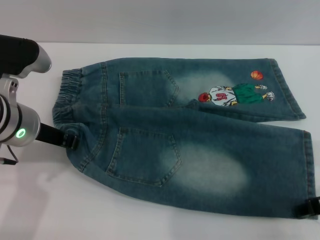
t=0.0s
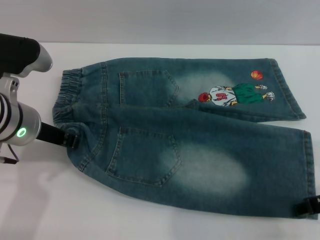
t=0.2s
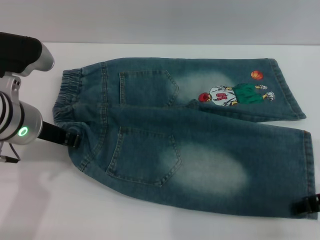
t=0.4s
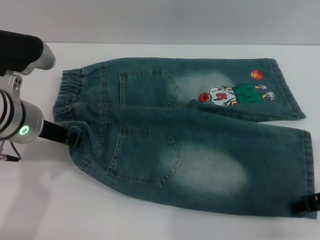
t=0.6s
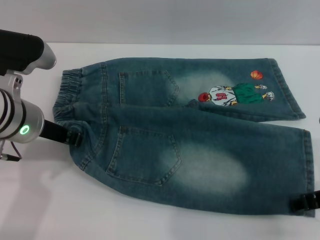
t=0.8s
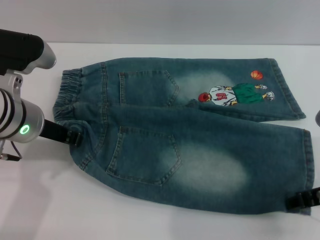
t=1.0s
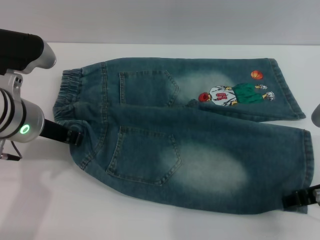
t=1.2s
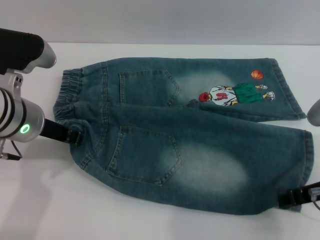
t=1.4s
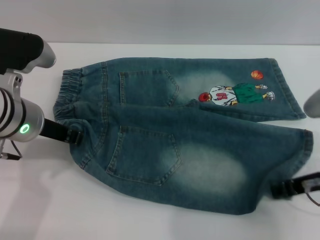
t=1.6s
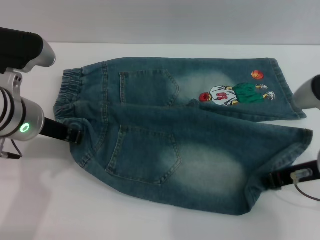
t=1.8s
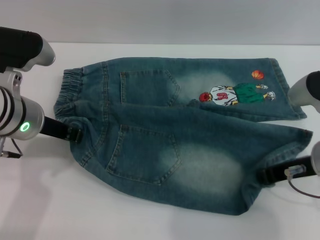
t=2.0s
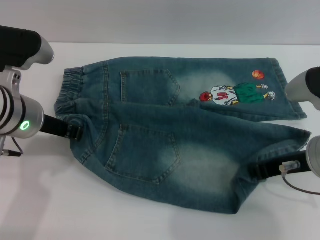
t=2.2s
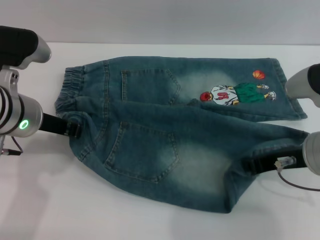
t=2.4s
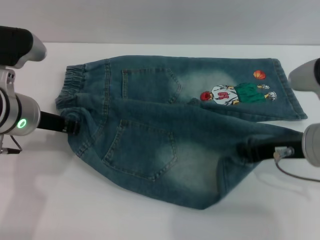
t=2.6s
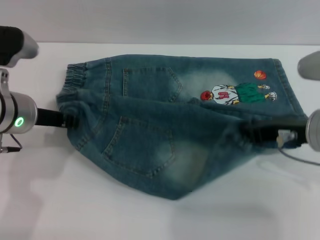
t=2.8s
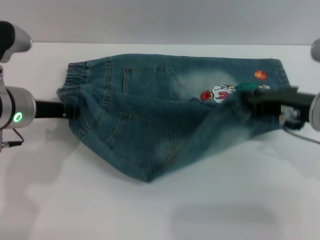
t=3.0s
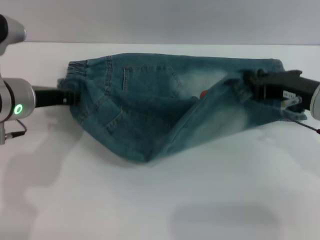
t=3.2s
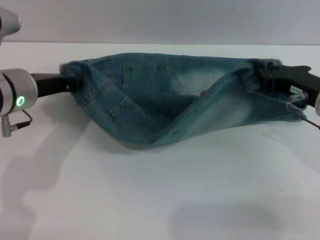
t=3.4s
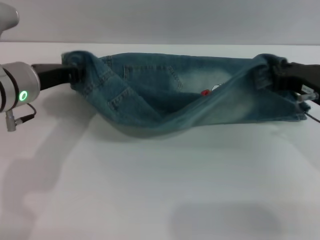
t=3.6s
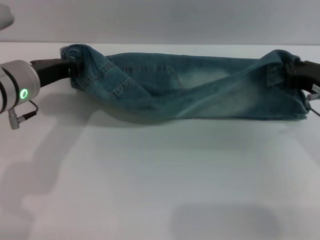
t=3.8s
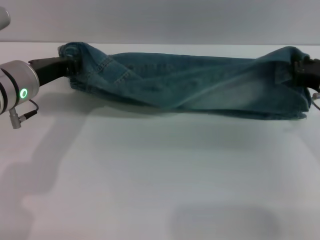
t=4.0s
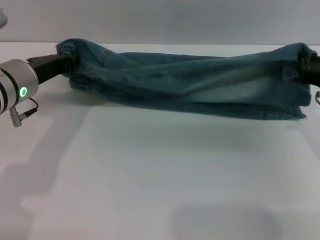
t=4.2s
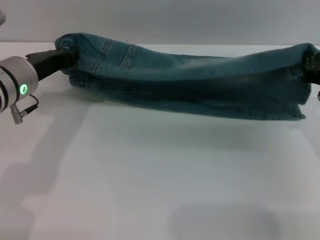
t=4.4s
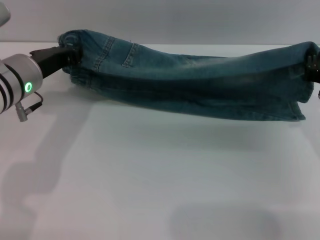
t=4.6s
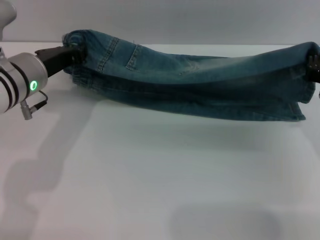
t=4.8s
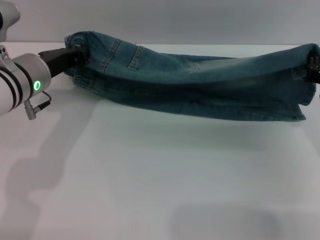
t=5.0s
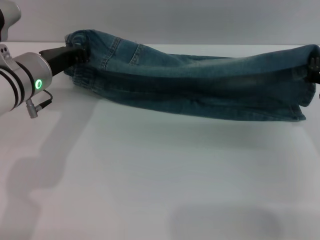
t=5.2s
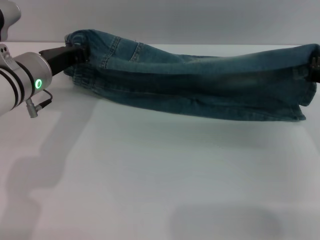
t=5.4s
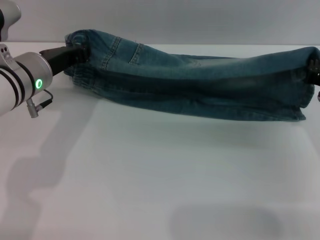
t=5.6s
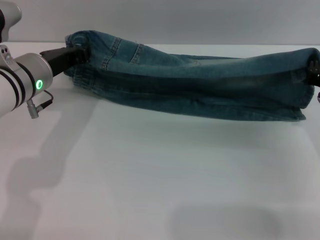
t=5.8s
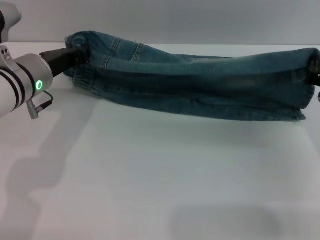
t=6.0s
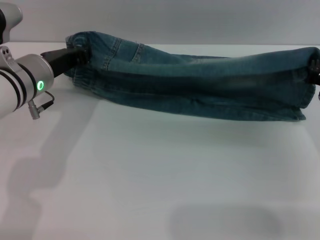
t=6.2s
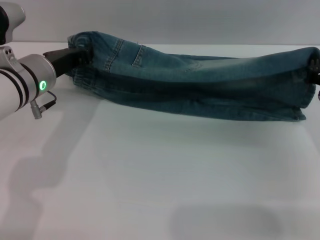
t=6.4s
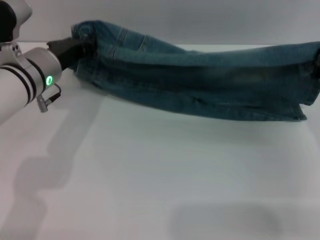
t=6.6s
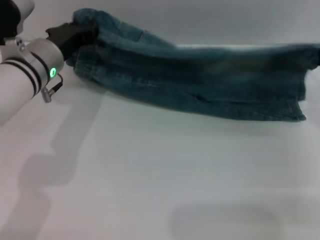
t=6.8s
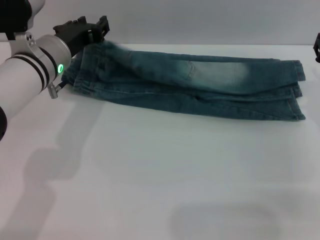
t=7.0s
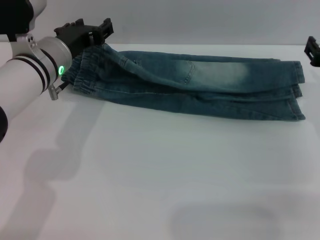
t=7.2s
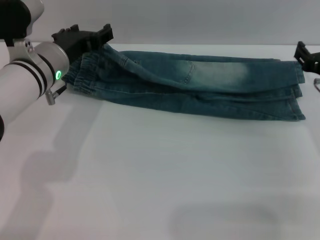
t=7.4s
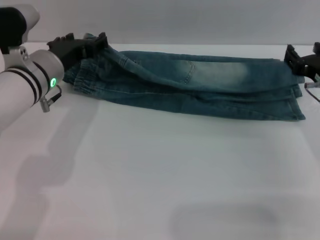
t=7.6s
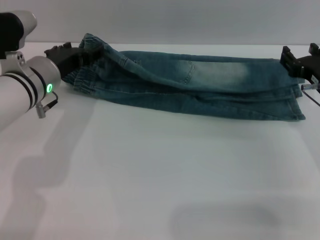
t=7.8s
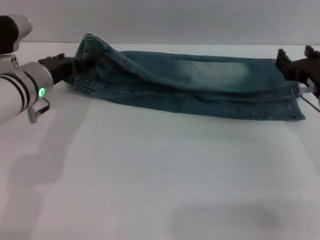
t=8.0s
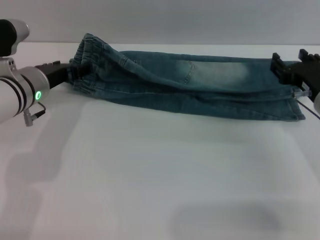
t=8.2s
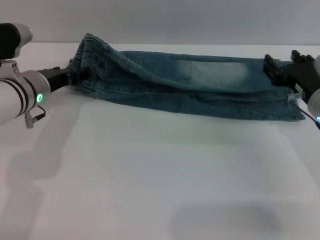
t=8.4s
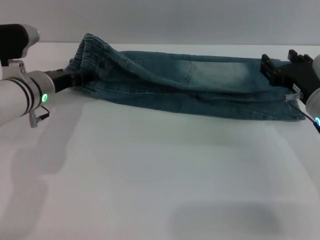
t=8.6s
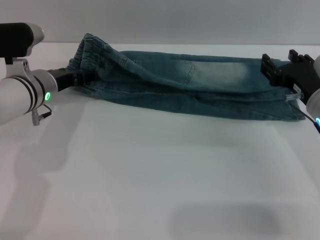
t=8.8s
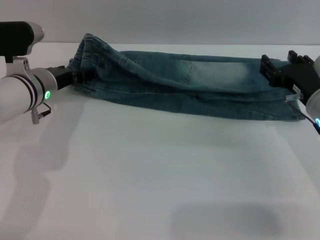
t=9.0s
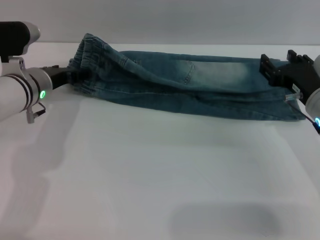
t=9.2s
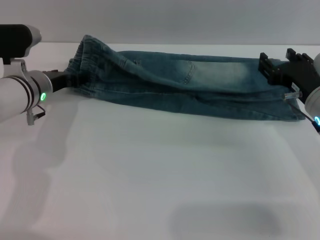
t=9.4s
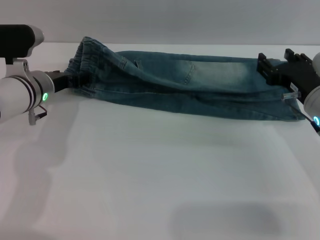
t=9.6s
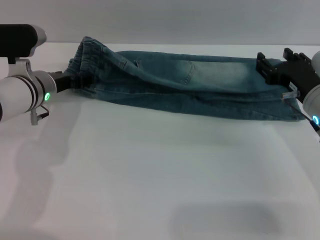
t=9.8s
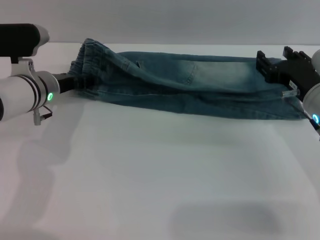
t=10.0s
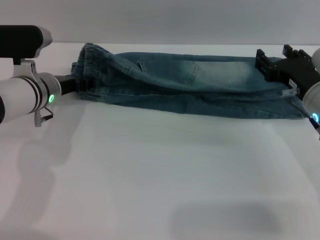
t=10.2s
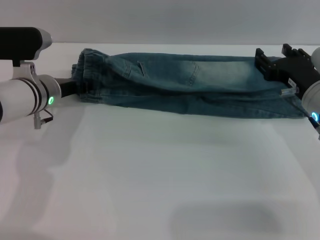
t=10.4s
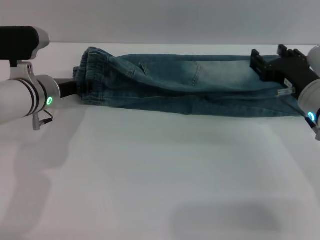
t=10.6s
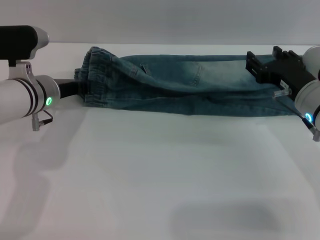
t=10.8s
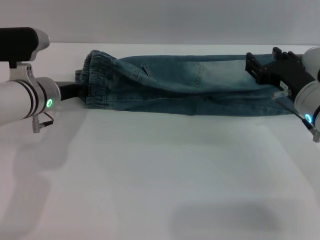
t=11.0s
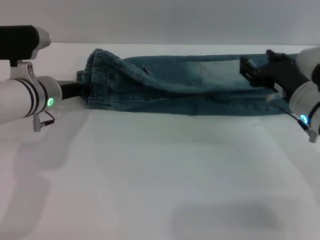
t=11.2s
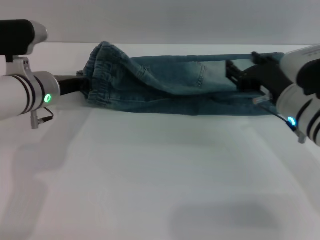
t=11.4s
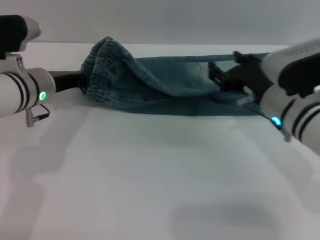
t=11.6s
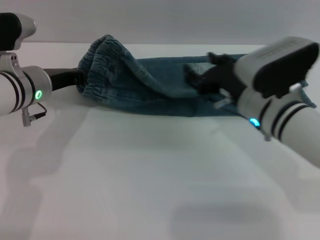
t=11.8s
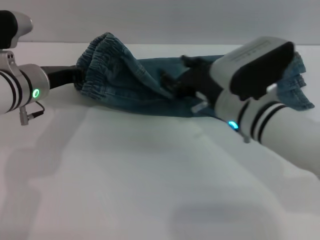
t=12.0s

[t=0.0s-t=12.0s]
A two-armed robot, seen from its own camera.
Step, t=0.0s to t=7.0s: Fold the bottom of the pants upward with both grippers.
t=0.0s to t=1.6s: The grippers stay close to where they were, moving slightly.
t=1.6s to t=3.0s: The right gripper closes.
t=3.0s to t=4.4s: The right gripper shifts roughly 5 cm to the right.
t=4.4s to t=6.0s: The grippers move only a little.
t=6.0s to t=7.6s: The right gripper opens its fingers. Meanwhile the left gripper opens.
t=7.6s to t=10.4s: There are only small adjustments of the grippers.
t=10.4s to t=12.0s: The left gripper closes up. Meanwhile the right gripper is displaced to the left by some 10 cm.

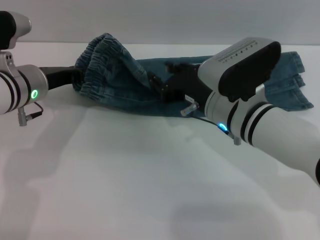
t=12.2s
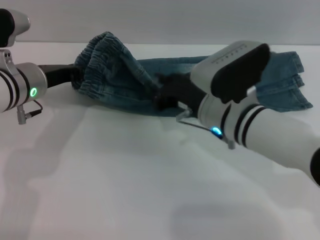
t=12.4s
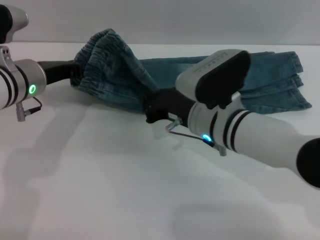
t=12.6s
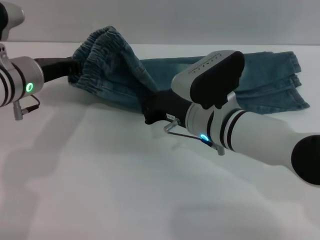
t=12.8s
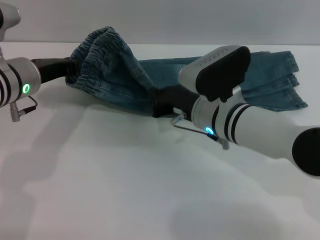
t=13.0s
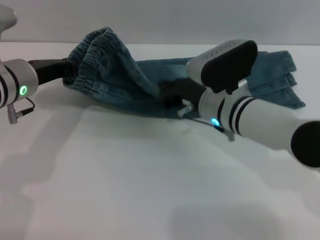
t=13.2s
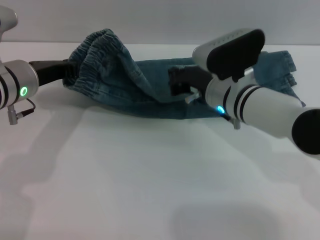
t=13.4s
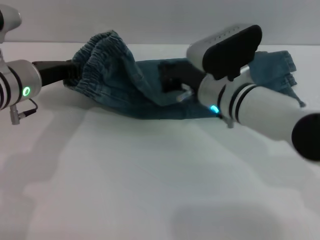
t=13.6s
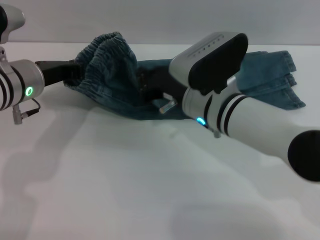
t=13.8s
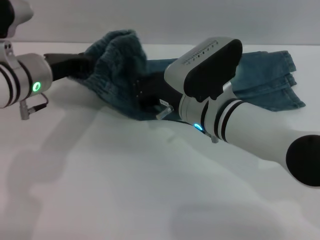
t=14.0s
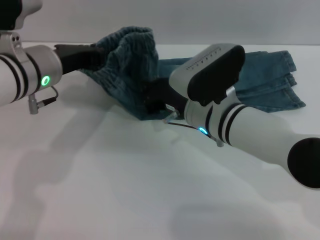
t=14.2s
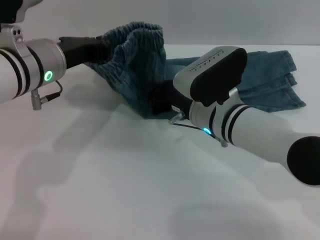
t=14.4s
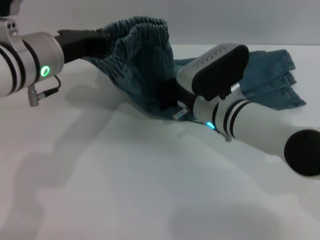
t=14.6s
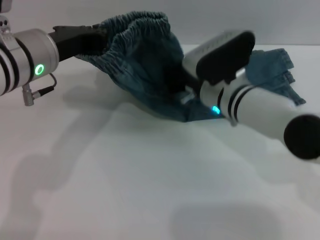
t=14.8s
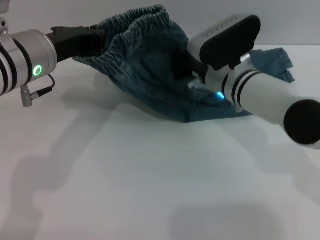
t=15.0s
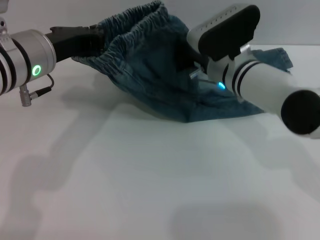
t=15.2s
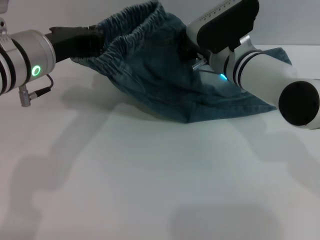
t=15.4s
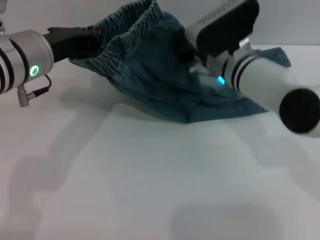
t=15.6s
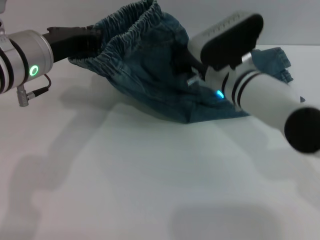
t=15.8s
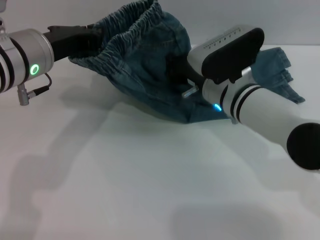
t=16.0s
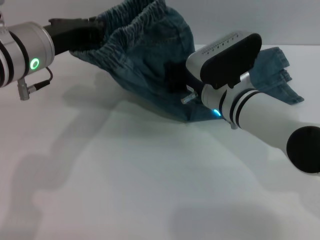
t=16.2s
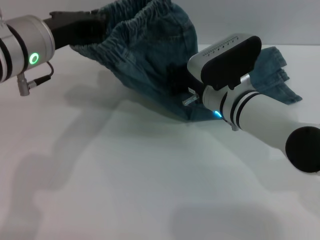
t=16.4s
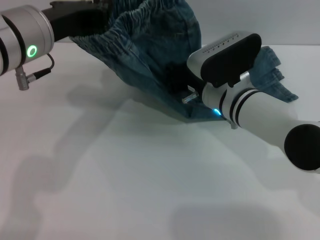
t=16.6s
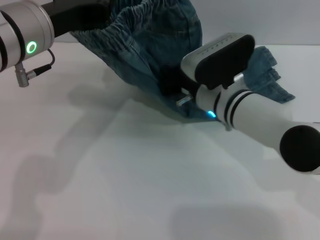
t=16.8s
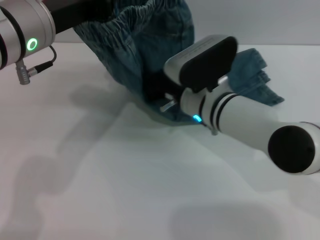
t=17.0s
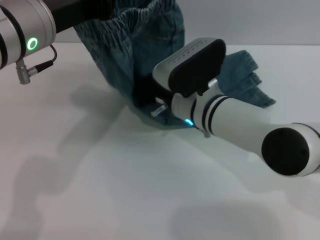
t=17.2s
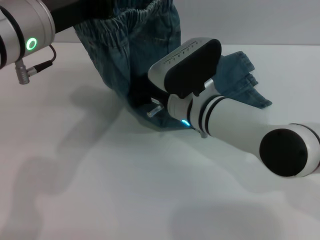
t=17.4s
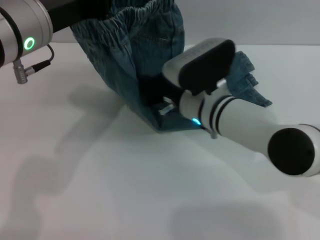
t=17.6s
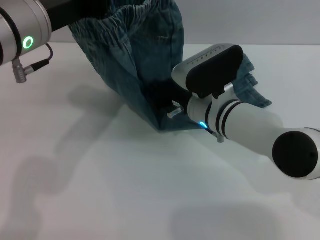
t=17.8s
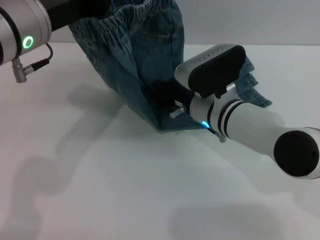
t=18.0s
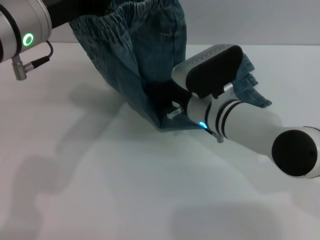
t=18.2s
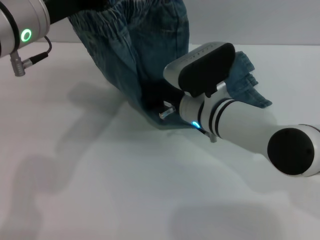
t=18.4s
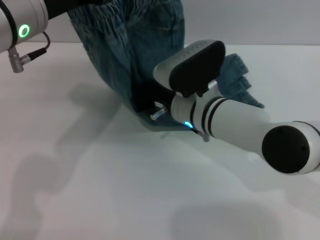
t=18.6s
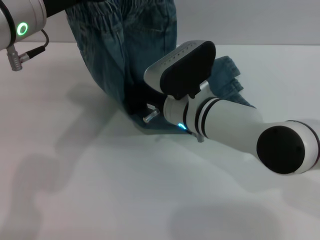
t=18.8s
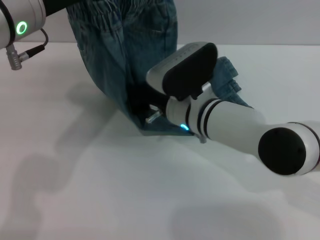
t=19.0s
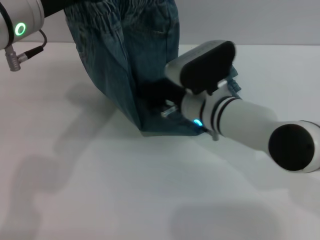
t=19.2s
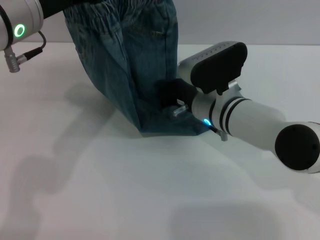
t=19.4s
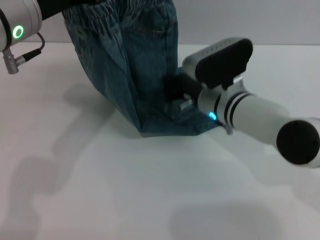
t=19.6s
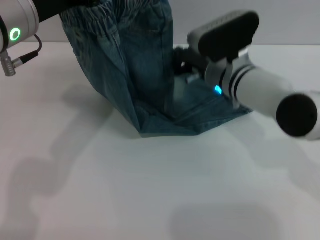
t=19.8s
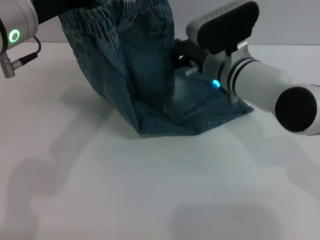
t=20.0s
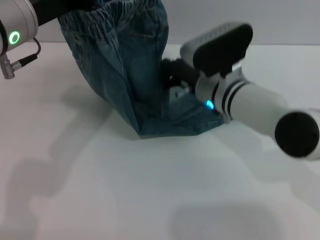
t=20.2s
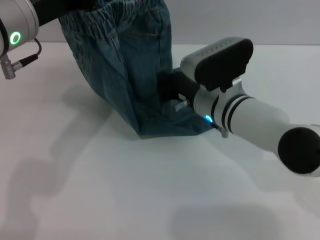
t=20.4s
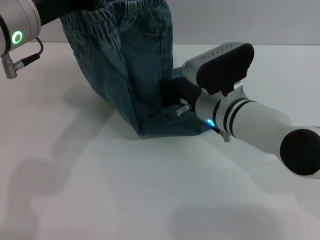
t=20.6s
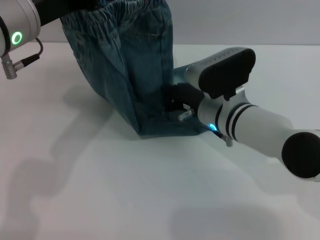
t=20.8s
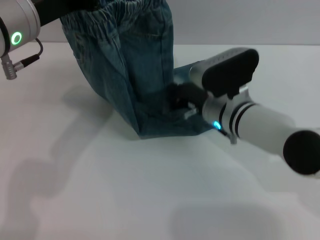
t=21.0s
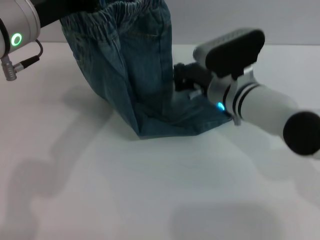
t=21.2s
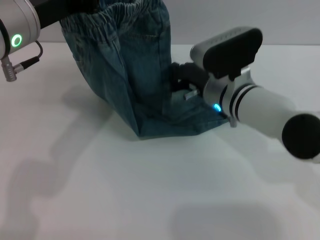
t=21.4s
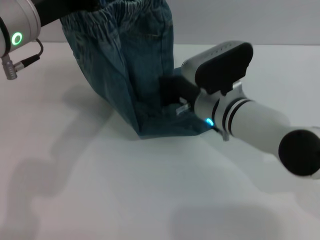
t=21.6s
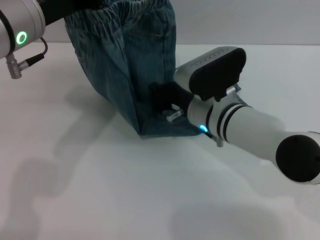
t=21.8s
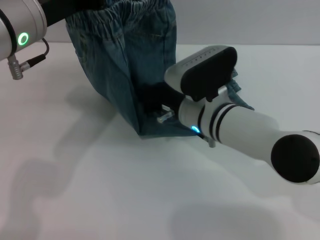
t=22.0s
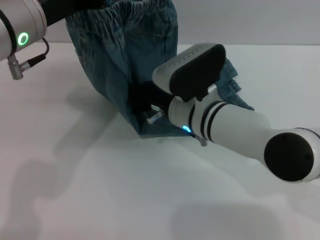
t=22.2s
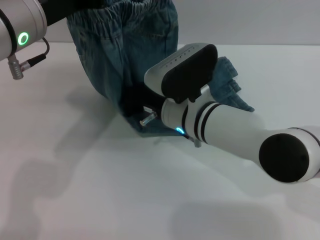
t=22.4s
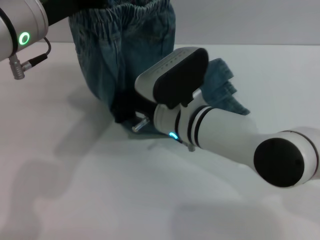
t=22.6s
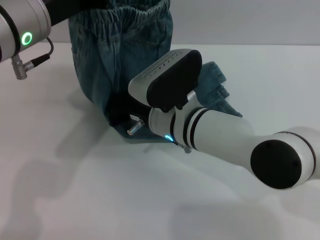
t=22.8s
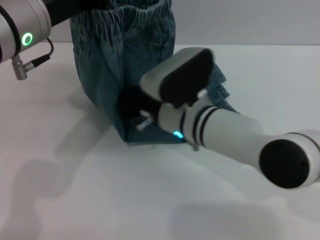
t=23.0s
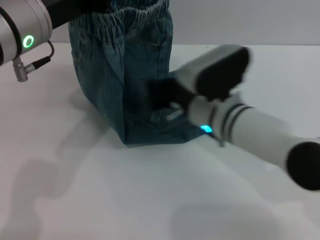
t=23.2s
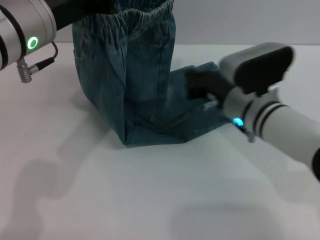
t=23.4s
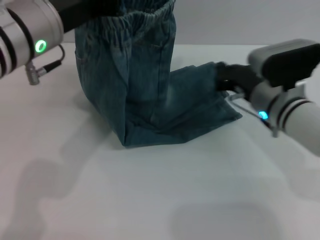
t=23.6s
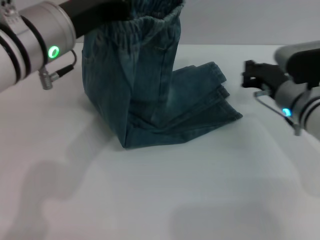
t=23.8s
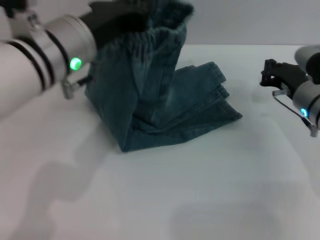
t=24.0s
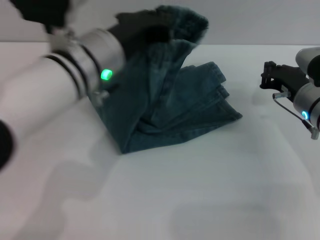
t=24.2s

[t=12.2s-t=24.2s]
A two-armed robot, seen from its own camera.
t=12.2s to t=13.8s: The right gripper closes.
t=13.8s to t=15.2s: The left gripper heads upward, covering roughly 5 cm. The right gripper is displaced forward by about 5 cm.
t=18.2s to t=19.8s: The right gripper goes roughly 5 cm forward.
t=19.8s to t=21.2s: The grippers stay close to where they were, moving slightly.
t=21.2s to t=22.6s: The right gripper goes some 10 cm to the left and backward.
t=22.6s to t=24.2s: The left gripper shifts about 10 cm to the right and downward. The right gripper shifts roughly 20 cm to the right.
